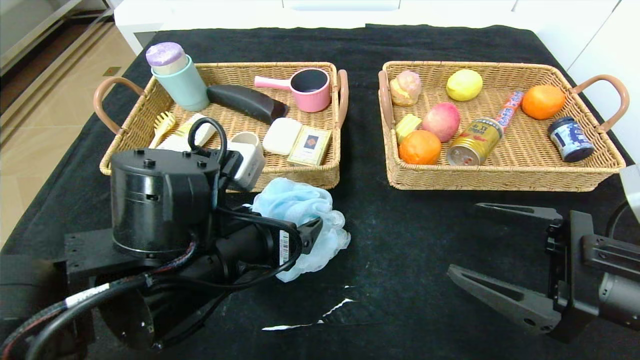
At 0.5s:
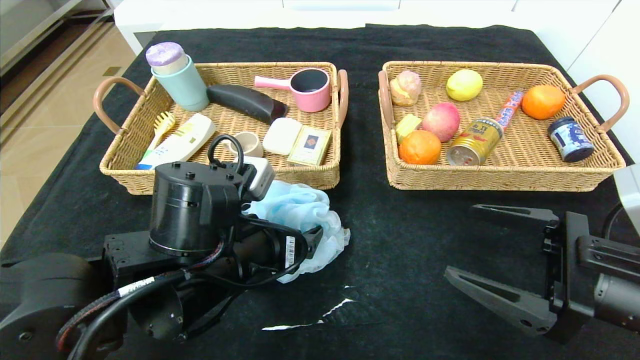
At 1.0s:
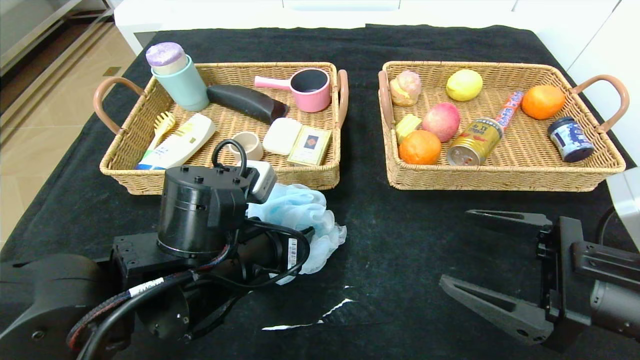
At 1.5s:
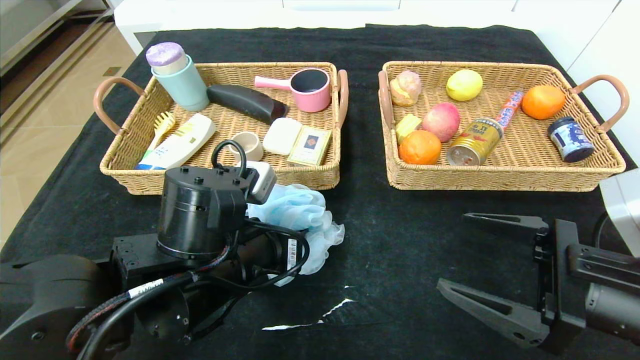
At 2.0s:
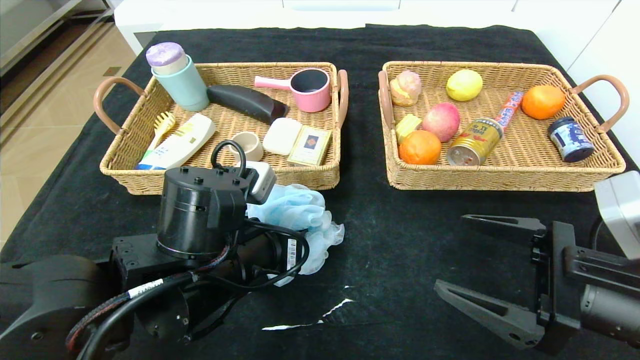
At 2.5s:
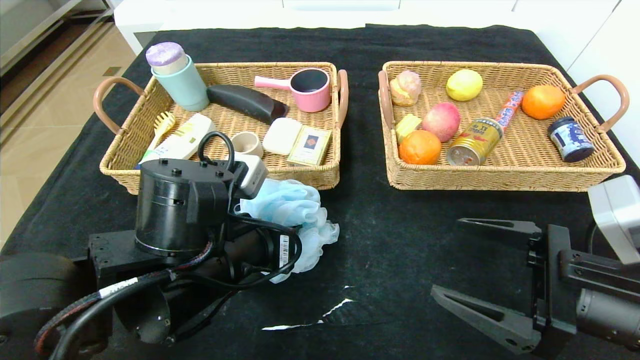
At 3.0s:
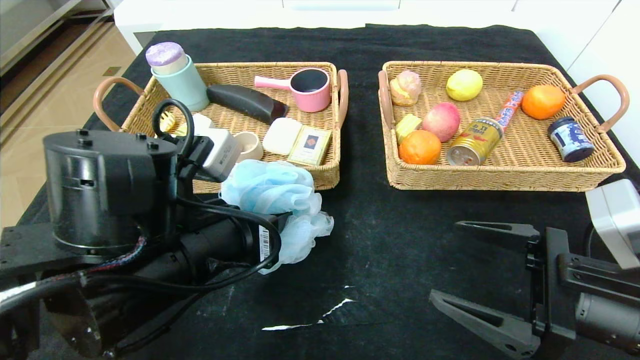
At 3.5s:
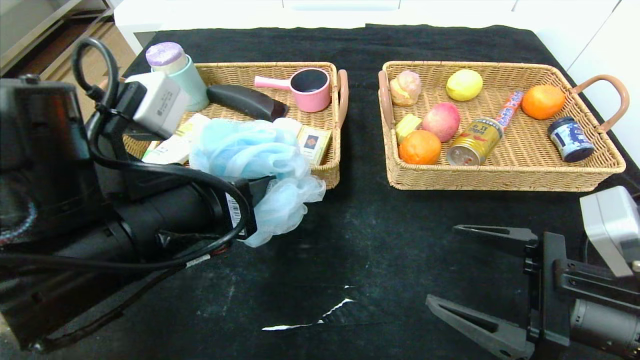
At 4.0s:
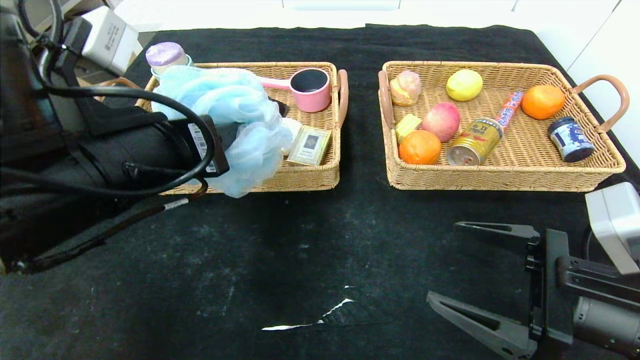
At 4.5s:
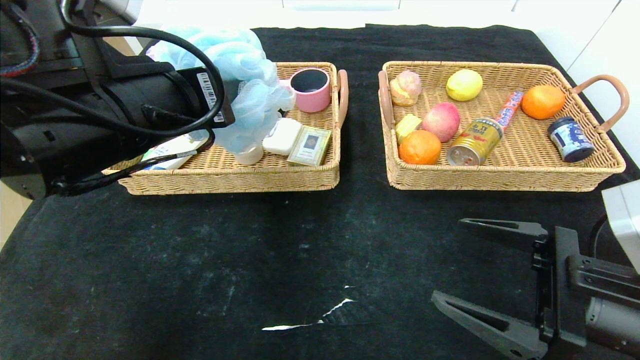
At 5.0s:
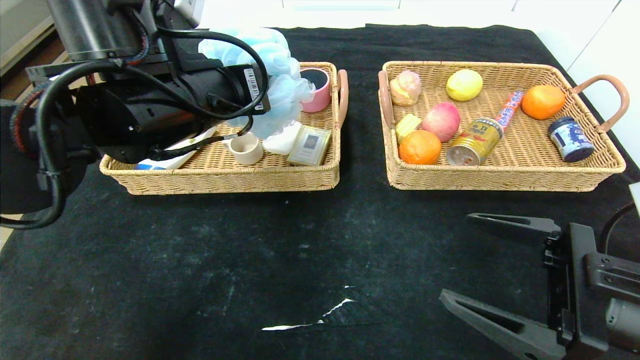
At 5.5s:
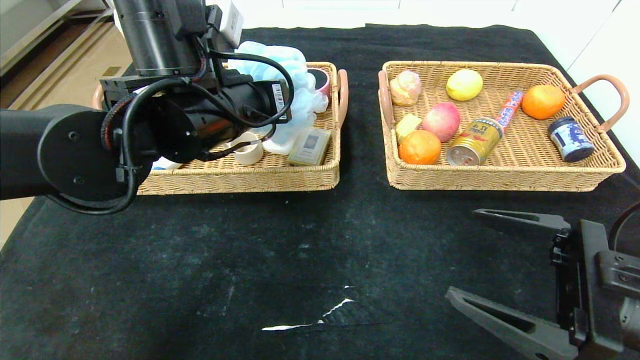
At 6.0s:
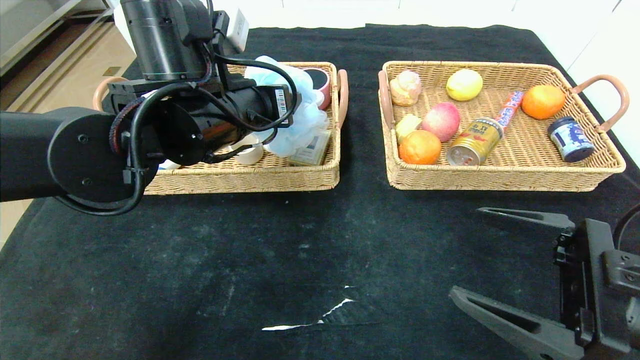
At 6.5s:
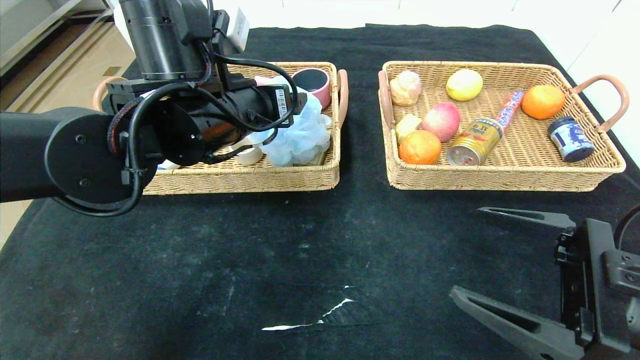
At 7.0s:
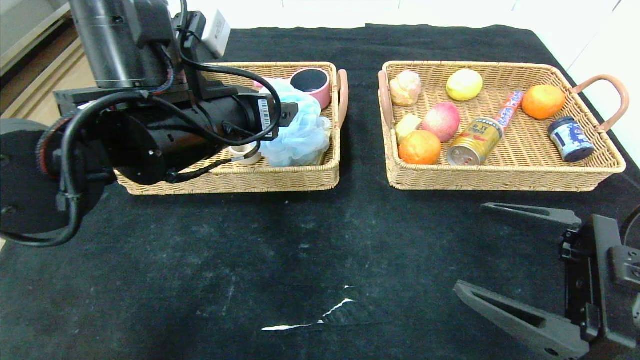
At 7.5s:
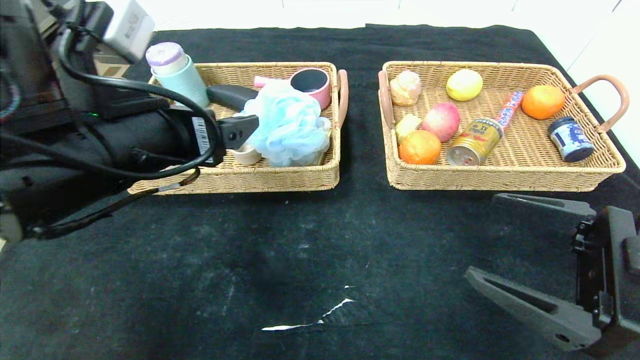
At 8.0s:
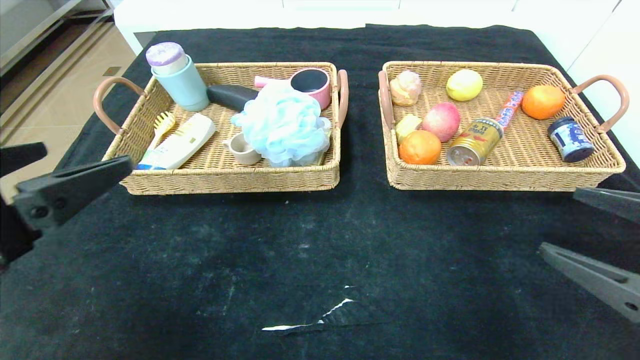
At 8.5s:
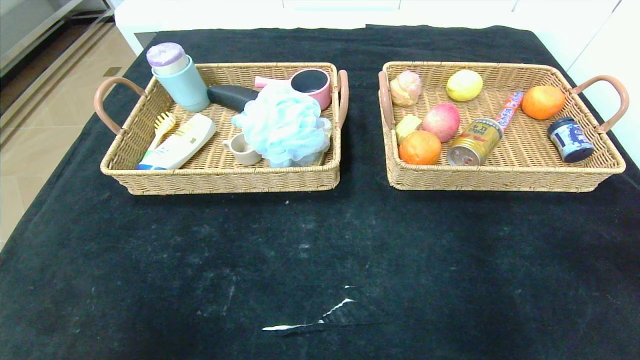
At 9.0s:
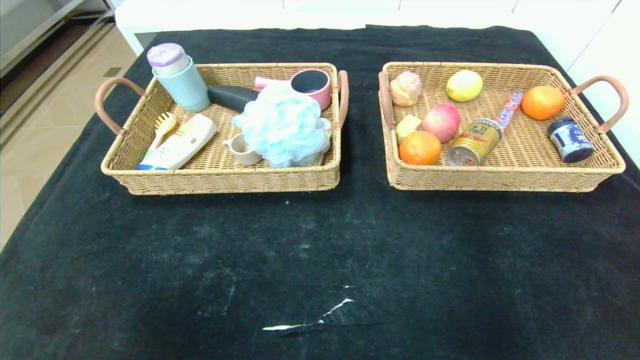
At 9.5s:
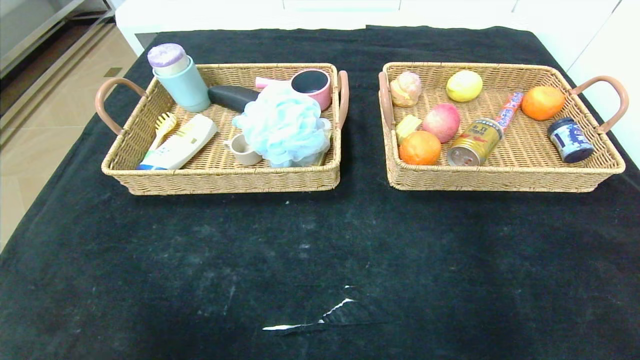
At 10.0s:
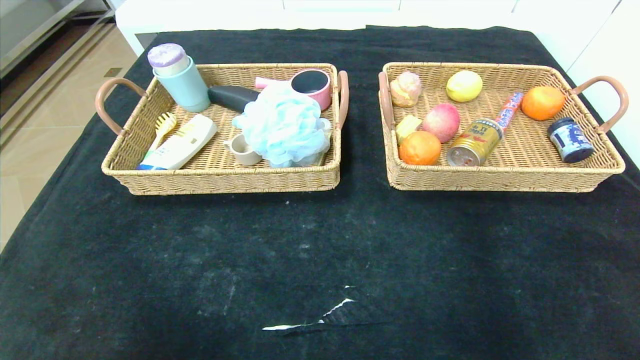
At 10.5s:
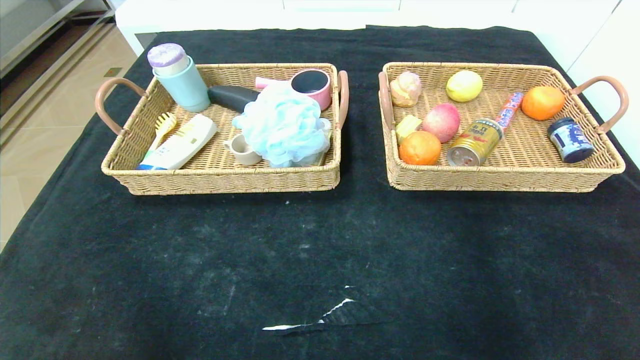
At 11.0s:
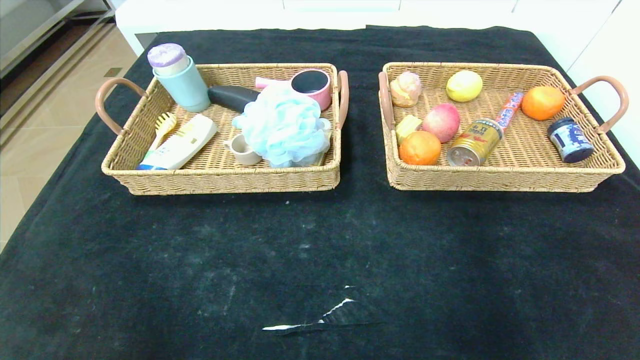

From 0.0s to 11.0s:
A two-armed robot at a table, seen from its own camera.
Step, from 0.0s to 7.0s: Grasp the bath ball and put it in the left basket.
From 0.0s to 2.0s: The left gripper closes up.
From 2.0s to 3.5s: The left gripper travels upward by roughly 10 cm.
From 3.5s to 5.5s: The left gripper goes roughly 15 cm forward.
From 5.5s to 7.5s: The left gripper is displaced backward and to the left by about 10 cm, and opens.
From 7.5s to 9.0s: The left gripper is displaced backward and to the left by some 30 cm. The right gripper travels backward and to the right by approximately 20 cm.
